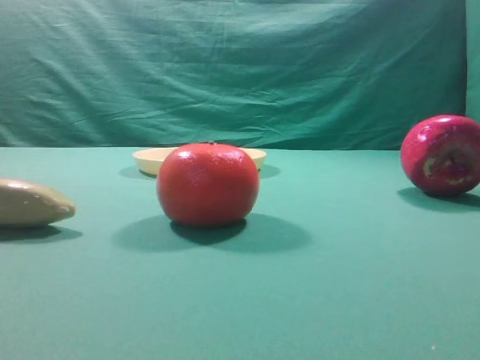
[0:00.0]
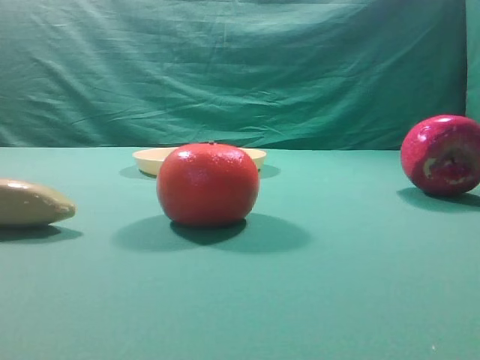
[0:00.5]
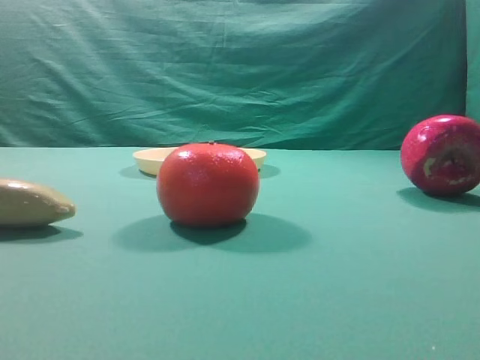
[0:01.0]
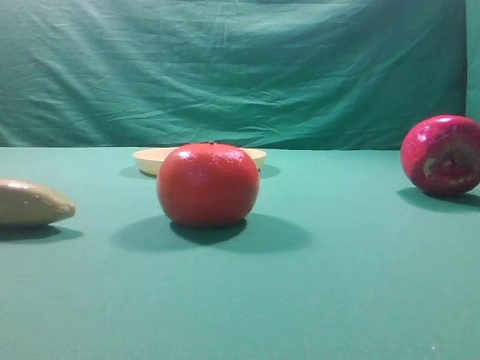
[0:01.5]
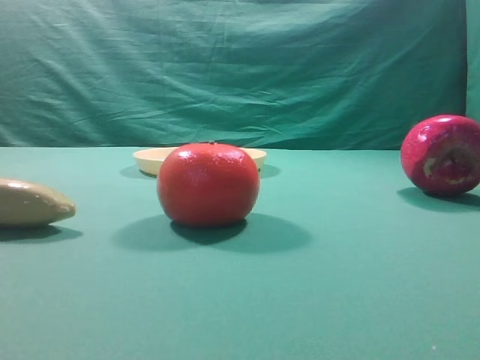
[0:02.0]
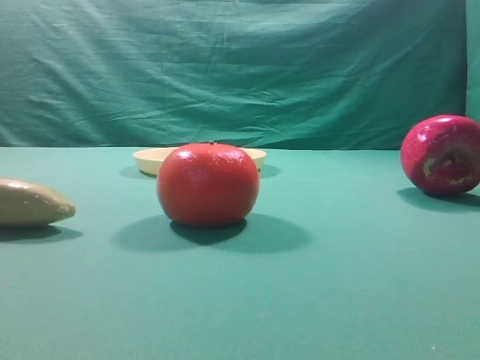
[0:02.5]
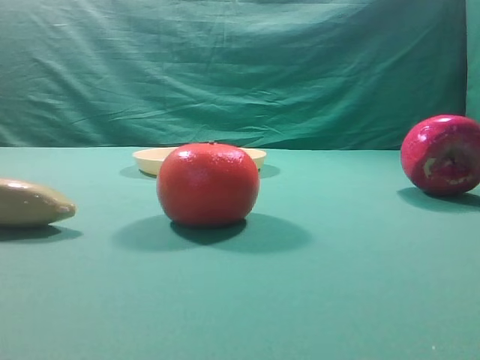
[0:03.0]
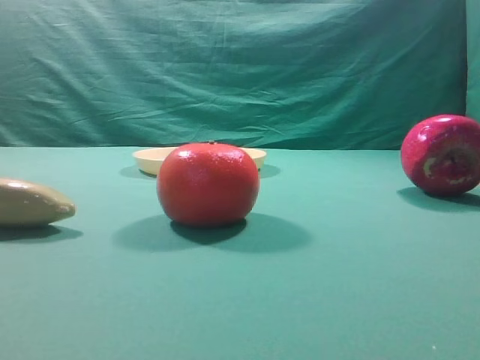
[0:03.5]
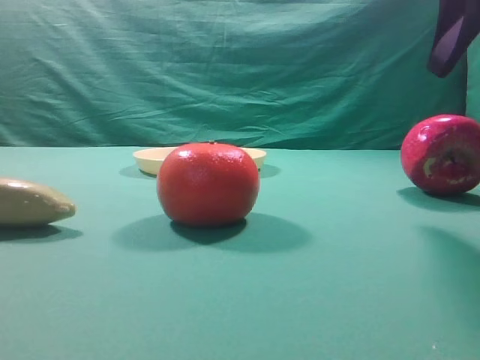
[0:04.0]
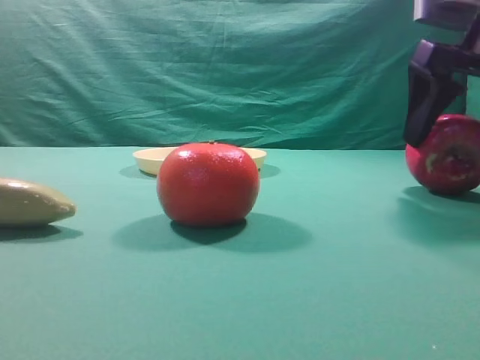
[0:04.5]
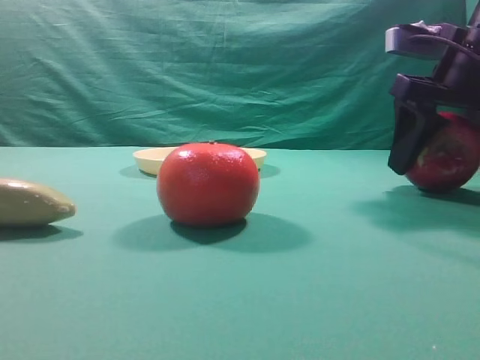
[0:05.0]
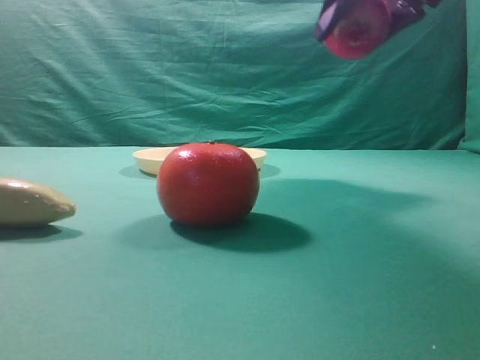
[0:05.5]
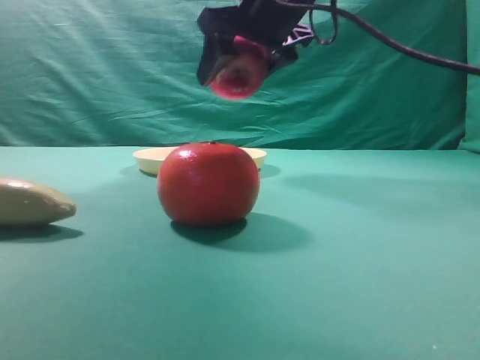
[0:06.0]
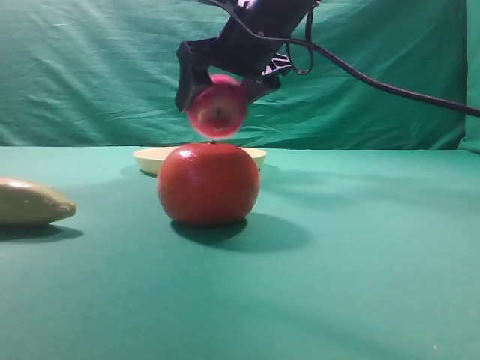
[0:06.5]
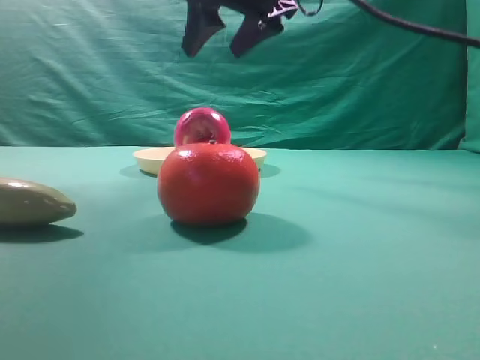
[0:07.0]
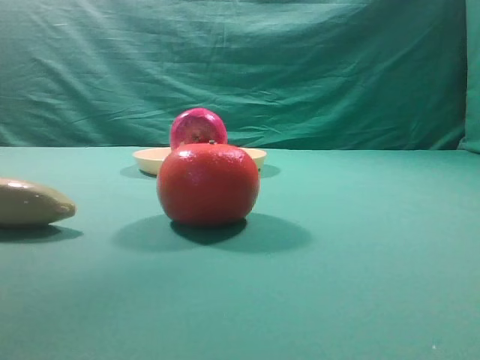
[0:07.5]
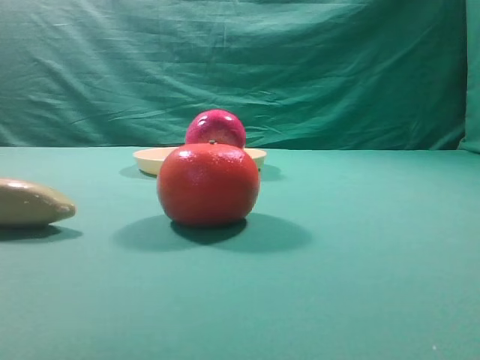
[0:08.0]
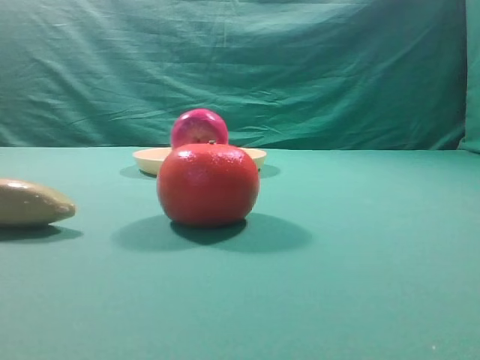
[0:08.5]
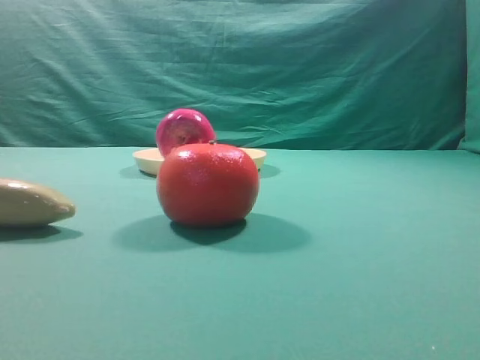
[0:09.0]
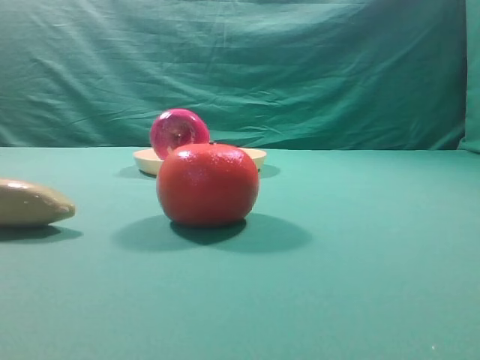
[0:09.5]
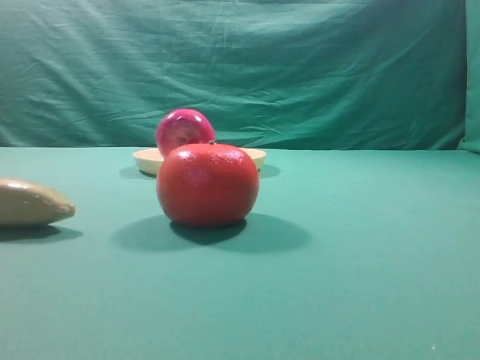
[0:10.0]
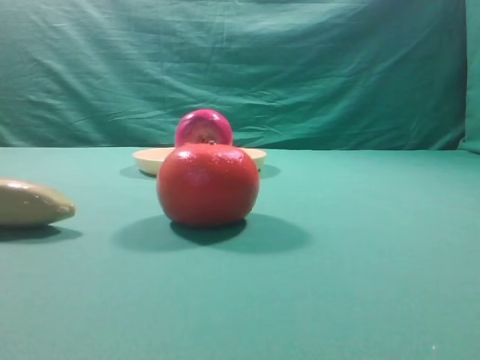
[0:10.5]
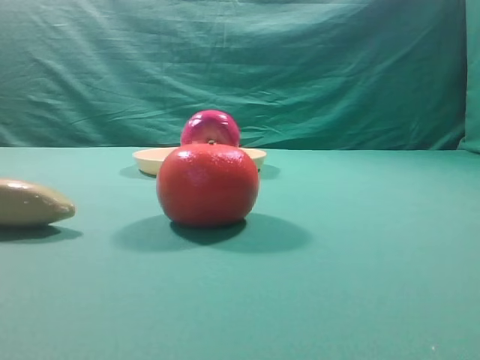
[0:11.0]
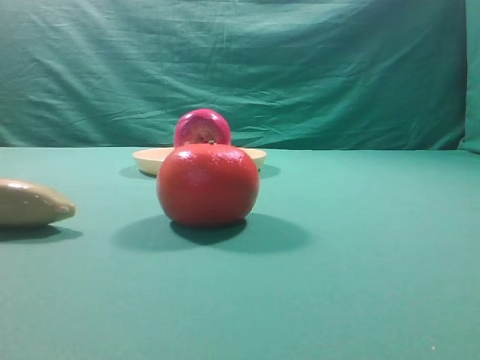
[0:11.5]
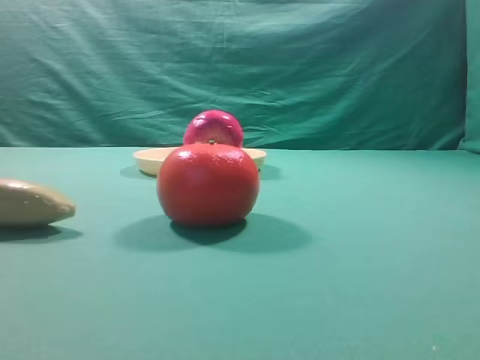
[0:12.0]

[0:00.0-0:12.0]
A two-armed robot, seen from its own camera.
Task of the whole recording: grasp the apple and place it into the yellow plate.
Step, 0:00.0 to 0:05.0: Grasp the fruit that can keep the doctor away.
Step, 0:05.5 to 0:06.5: Place the picked object into the yellow plate.

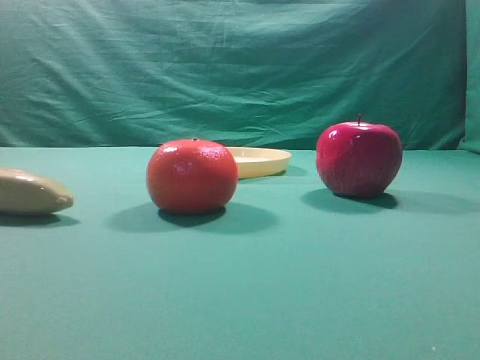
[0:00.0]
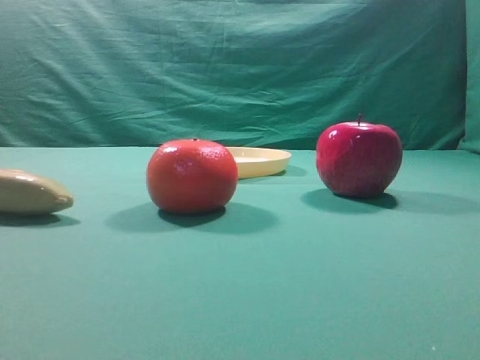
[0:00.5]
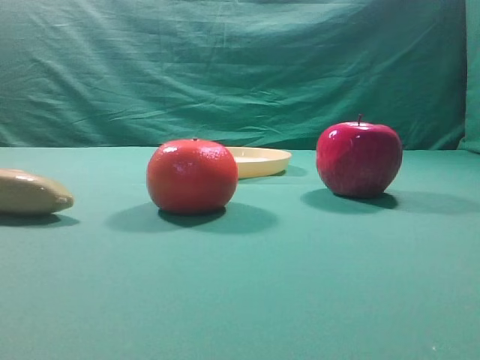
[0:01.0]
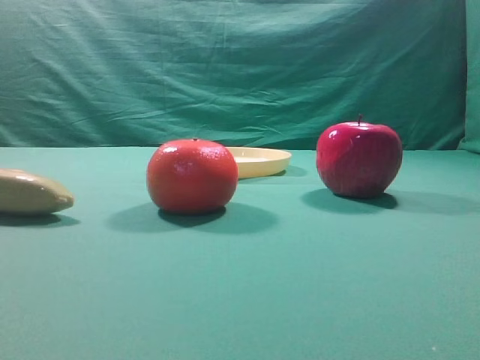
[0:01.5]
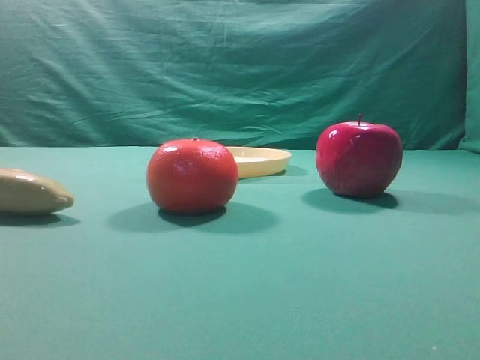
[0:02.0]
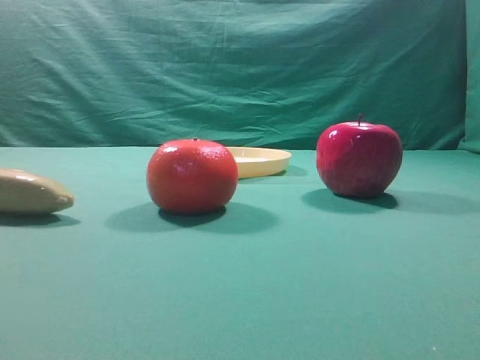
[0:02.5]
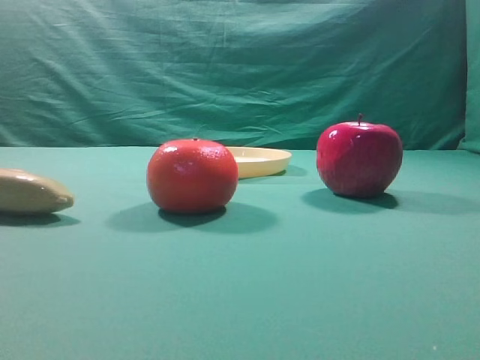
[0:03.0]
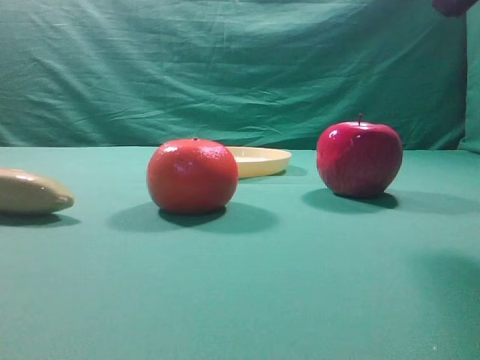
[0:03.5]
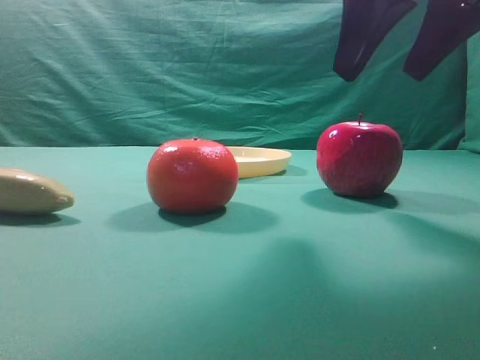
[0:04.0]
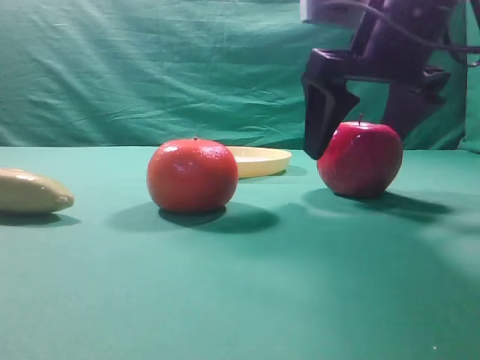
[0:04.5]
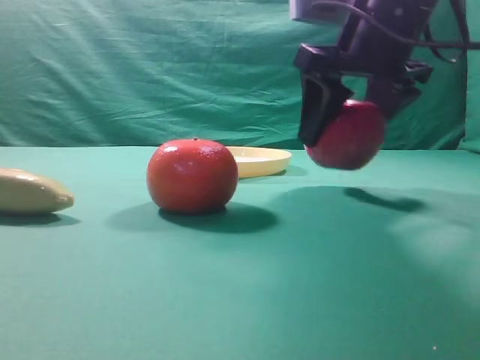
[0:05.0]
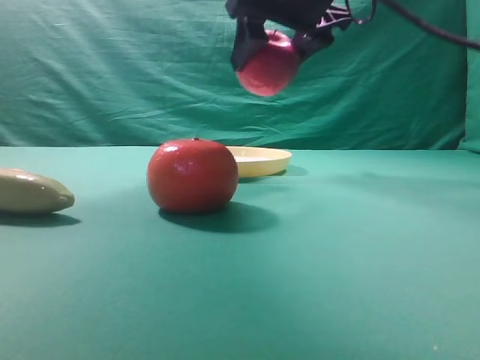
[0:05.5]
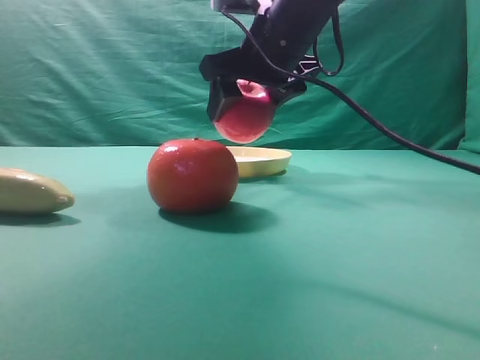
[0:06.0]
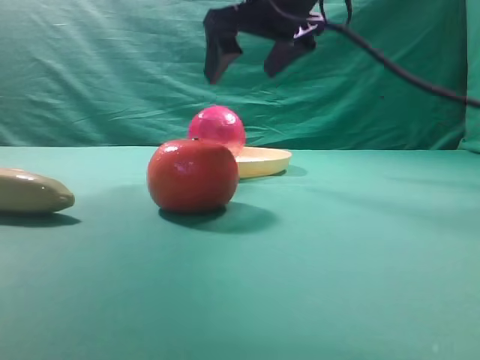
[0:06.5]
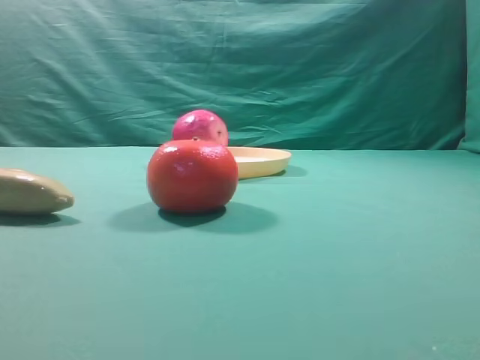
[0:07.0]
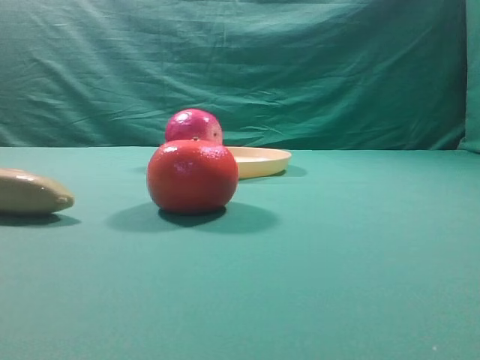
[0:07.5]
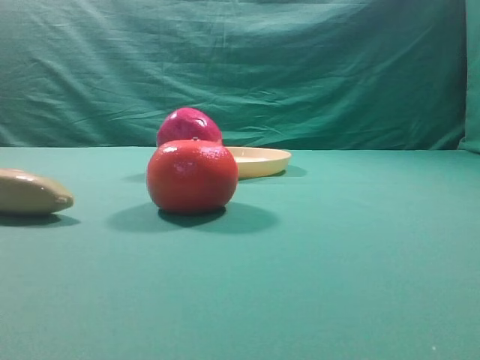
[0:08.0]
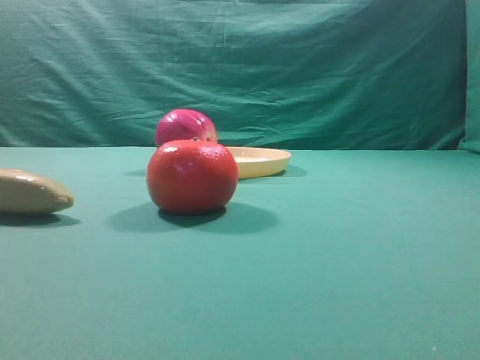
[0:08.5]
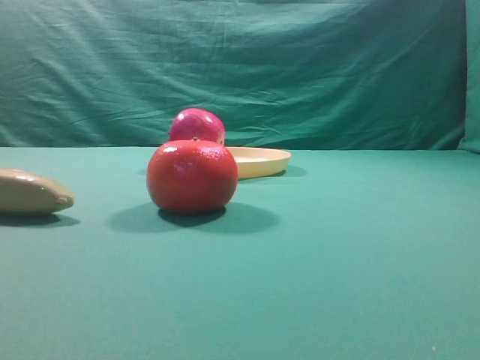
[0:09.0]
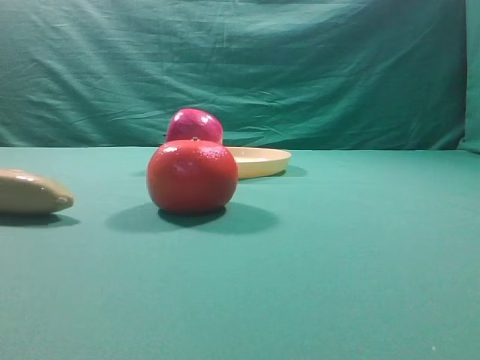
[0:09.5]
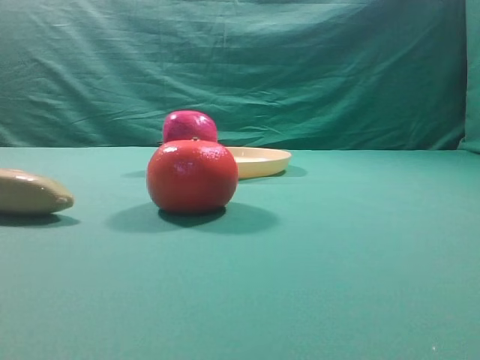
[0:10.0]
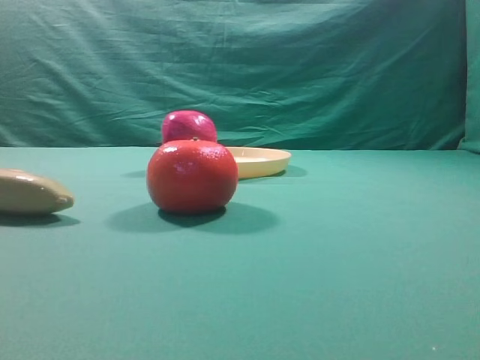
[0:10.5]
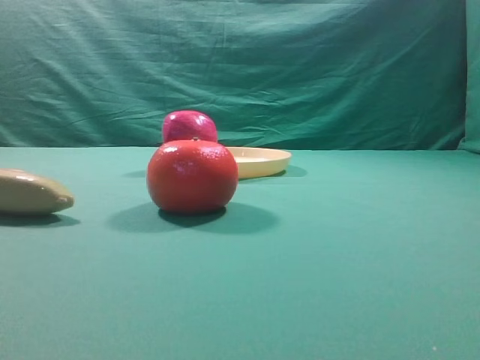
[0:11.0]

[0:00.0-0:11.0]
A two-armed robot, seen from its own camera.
Task of the whole recording: grasp the apple and place it into the yellow plate.
Step, 0:00.0 to 0:04.5: Grasp the fruit that can keep the doctor away.
Step, 0:05.5 to 0:06.0: Place the picked object into the yellow plate.
